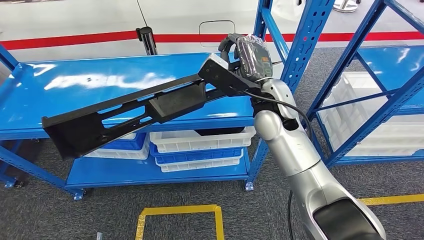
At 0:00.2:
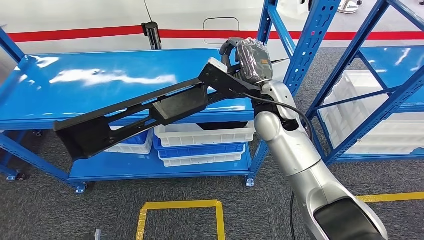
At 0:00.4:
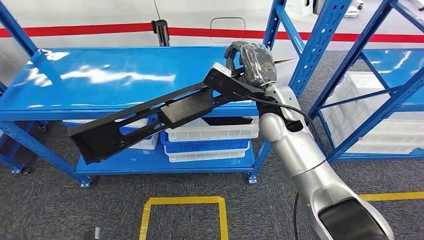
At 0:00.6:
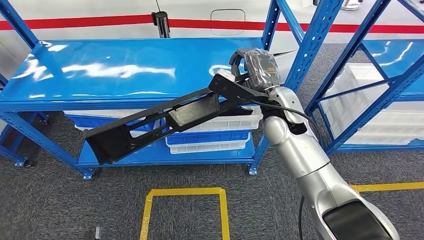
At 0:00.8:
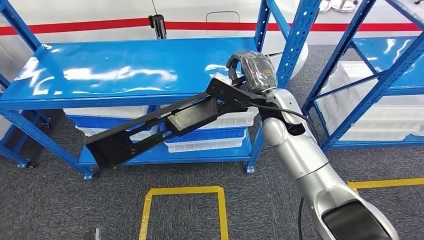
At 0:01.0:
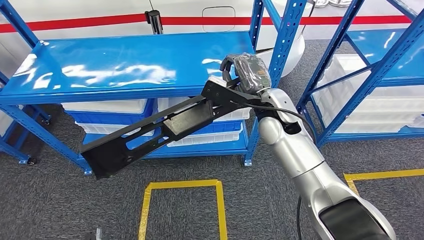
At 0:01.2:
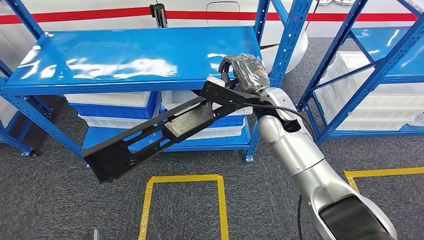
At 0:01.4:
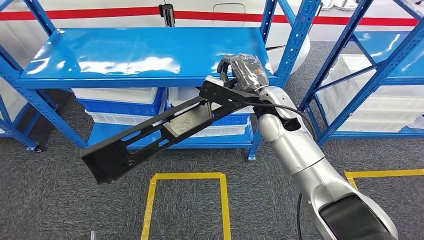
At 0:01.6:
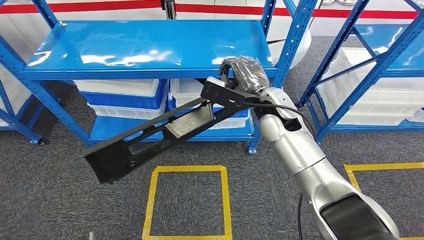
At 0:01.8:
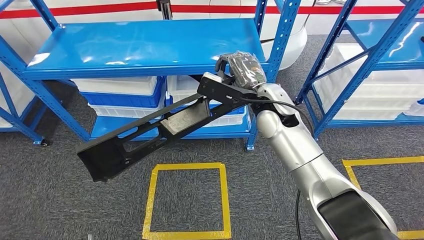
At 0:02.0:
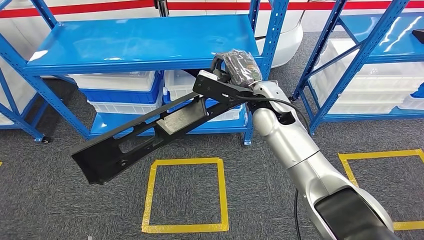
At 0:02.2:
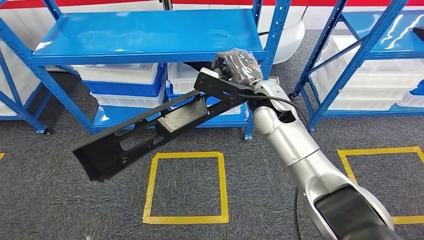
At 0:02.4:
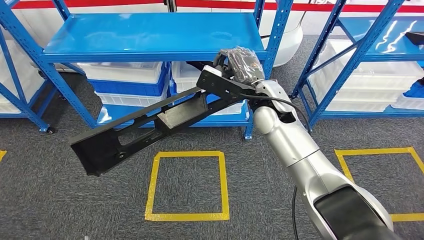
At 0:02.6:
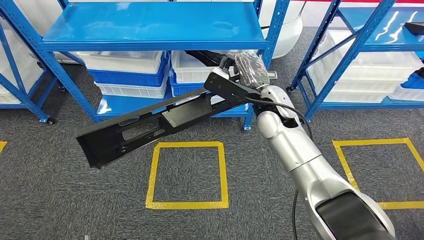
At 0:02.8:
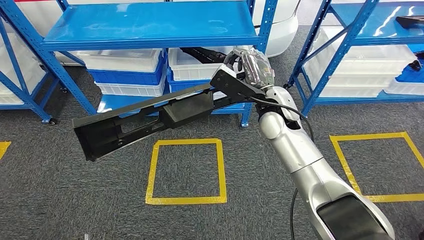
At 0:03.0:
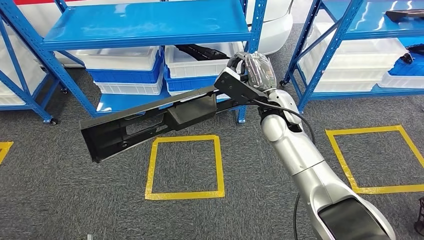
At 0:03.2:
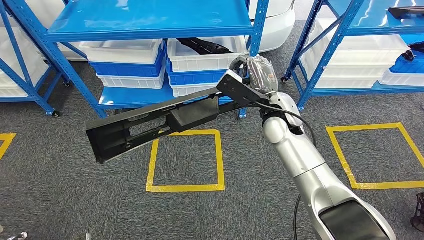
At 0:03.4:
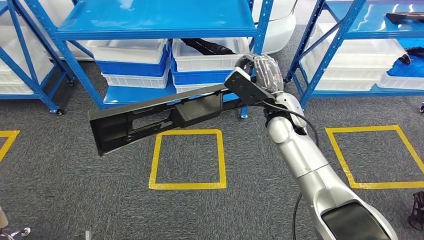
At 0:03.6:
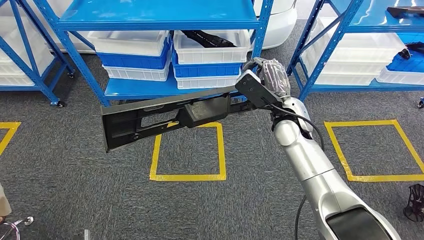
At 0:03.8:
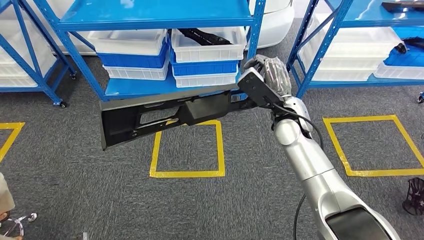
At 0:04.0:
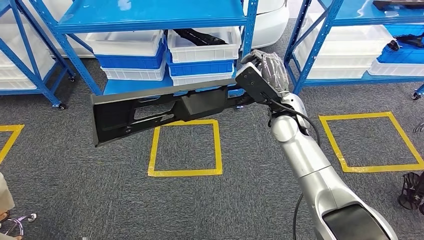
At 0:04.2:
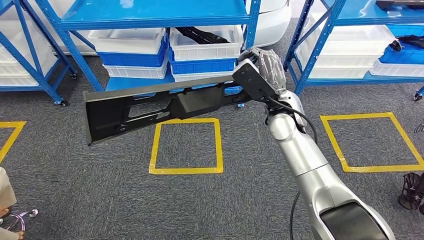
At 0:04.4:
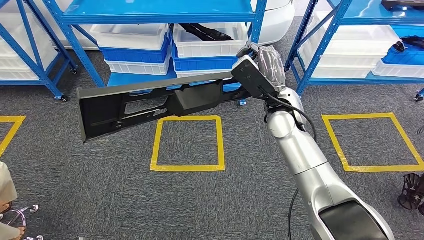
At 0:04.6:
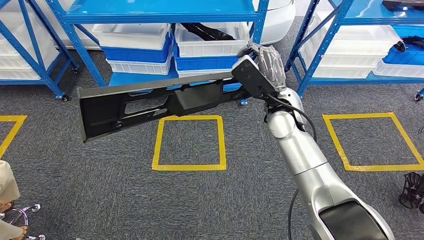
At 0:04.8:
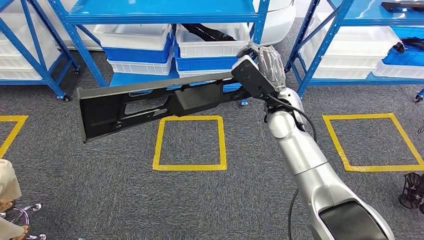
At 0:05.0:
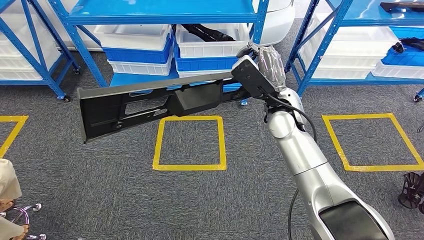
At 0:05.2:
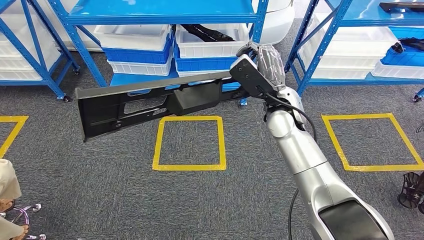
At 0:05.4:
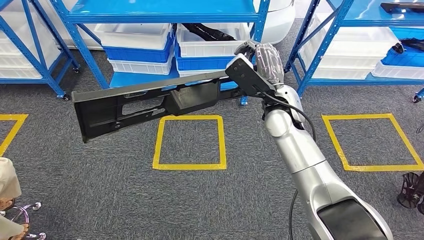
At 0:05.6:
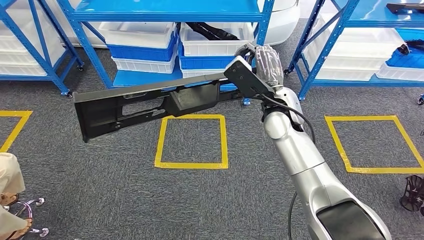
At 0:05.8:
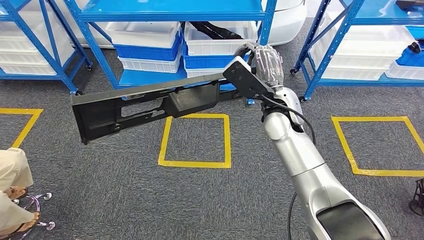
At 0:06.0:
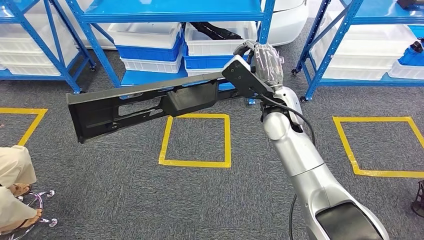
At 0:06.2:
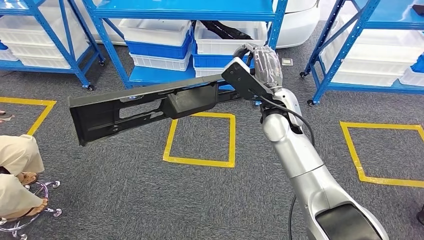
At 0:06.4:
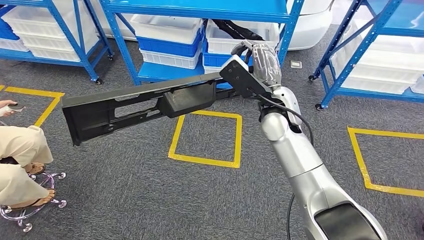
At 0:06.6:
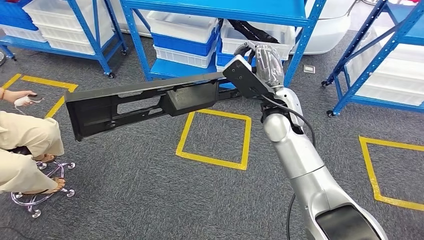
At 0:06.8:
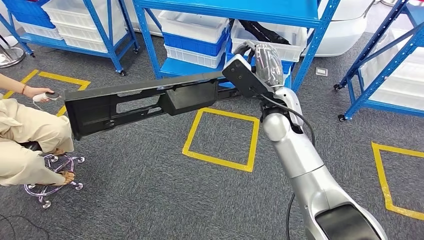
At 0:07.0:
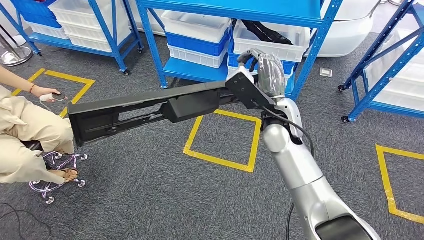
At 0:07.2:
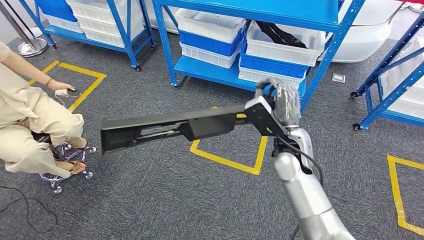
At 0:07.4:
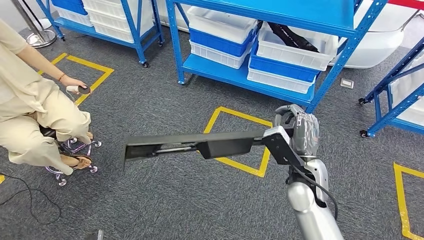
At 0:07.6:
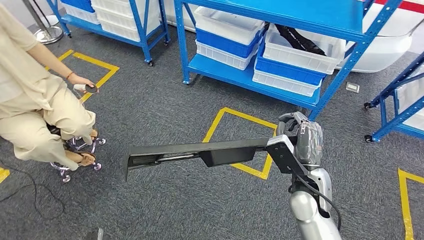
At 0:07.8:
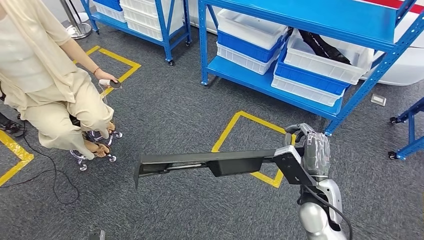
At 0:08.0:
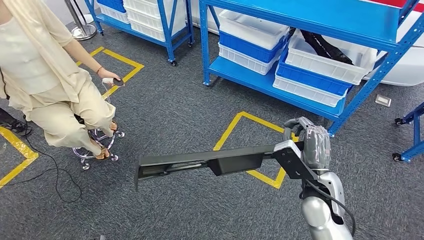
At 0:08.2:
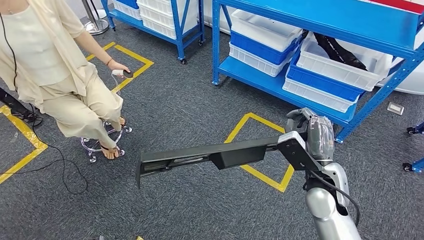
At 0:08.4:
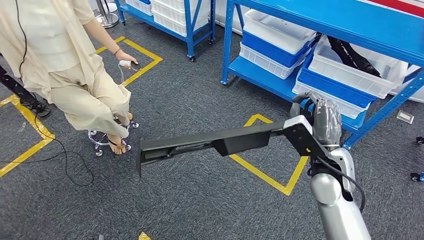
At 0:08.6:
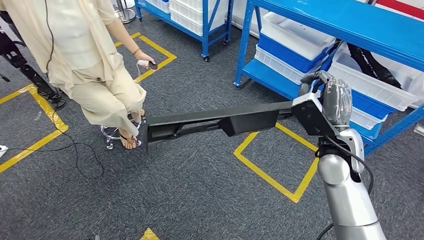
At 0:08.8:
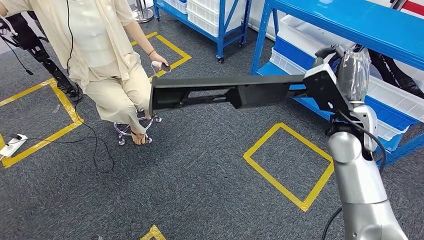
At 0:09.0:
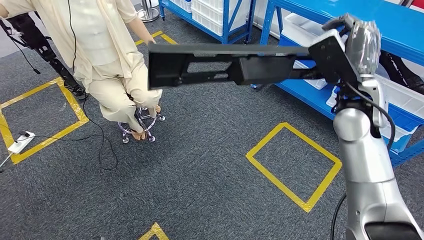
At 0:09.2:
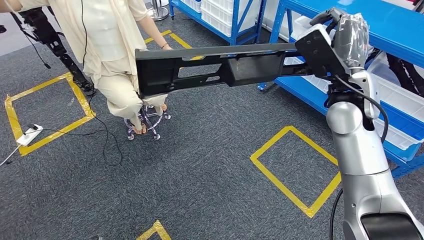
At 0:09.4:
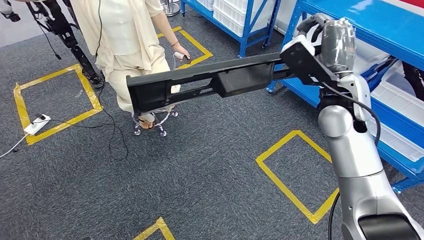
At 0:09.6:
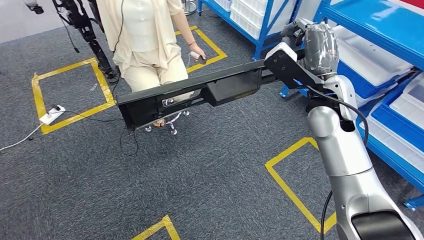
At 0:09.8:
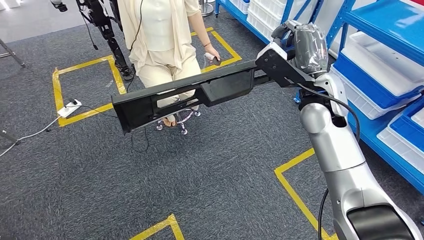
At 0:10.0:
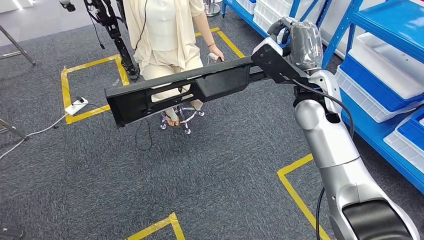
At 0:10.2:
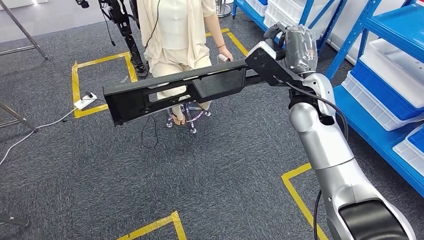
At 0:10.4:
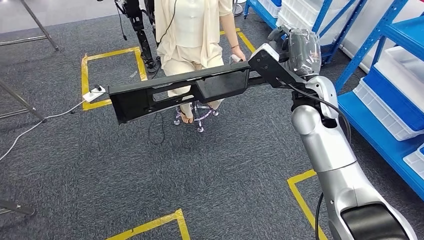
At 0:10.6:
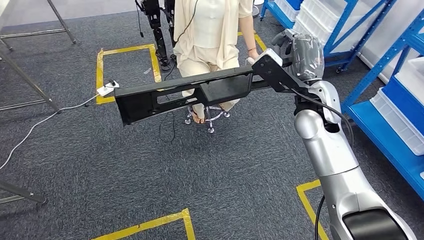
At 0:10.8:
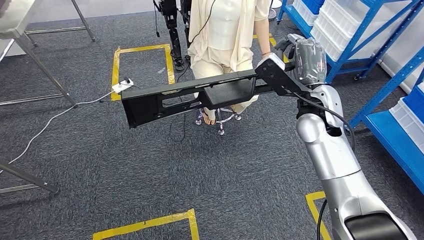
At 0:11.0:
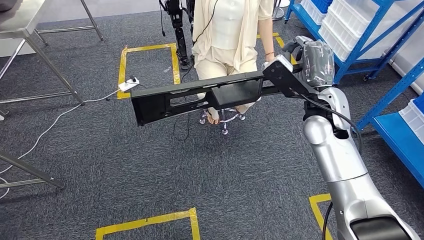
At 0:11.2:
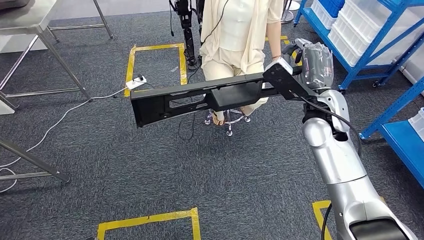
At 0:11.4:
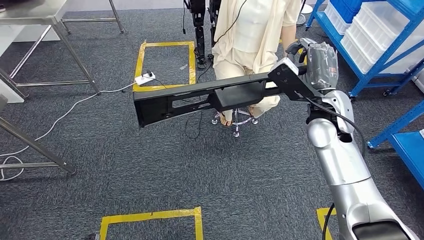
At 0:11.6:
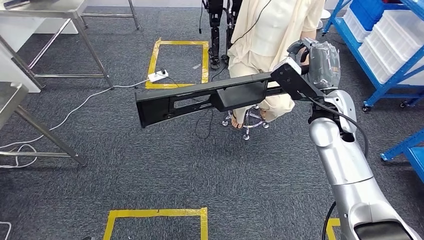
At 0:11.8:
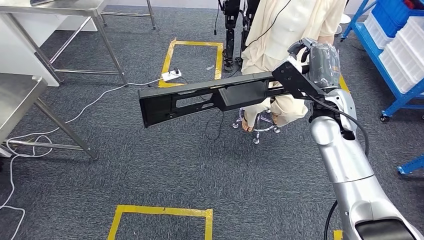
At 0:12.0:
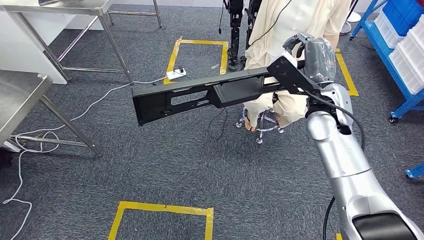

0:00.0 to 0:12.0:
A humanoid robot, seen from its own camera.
Step, 0:00.0 to 0:02.2: Pick up the large material from the shelf.

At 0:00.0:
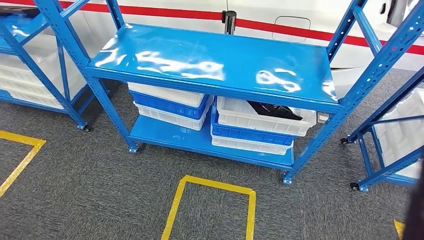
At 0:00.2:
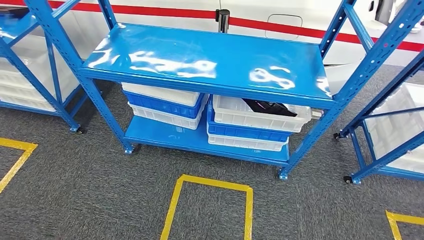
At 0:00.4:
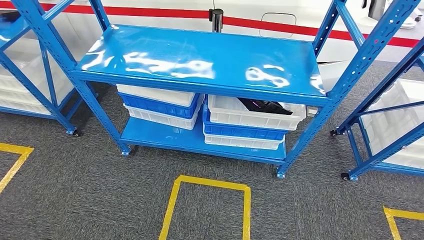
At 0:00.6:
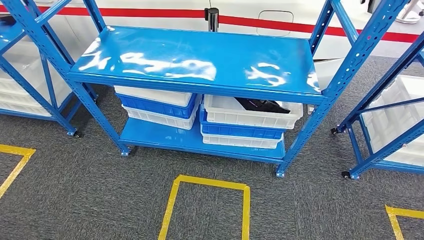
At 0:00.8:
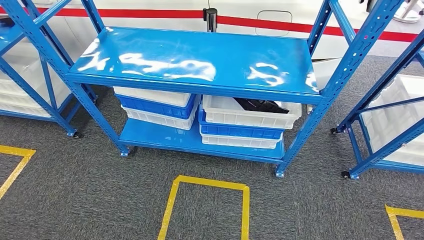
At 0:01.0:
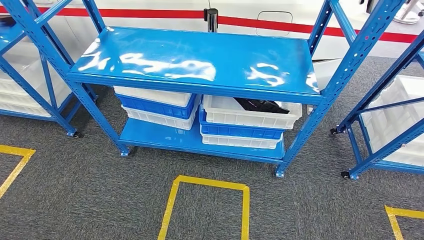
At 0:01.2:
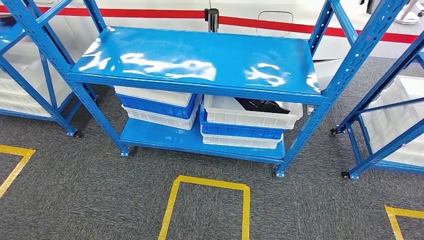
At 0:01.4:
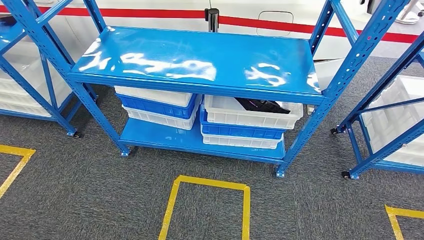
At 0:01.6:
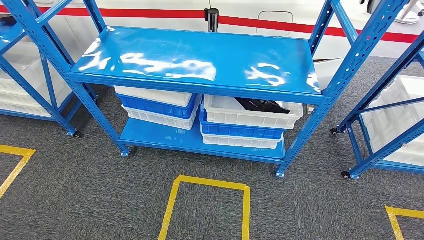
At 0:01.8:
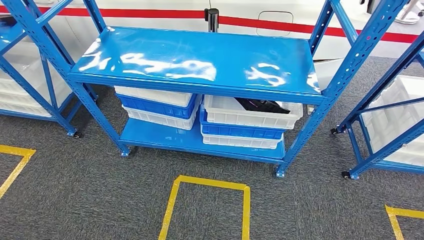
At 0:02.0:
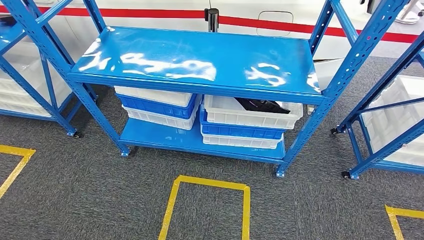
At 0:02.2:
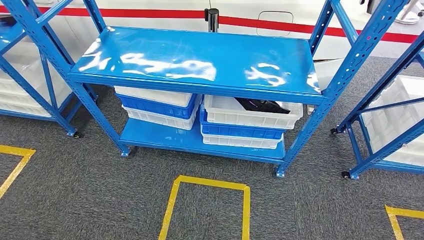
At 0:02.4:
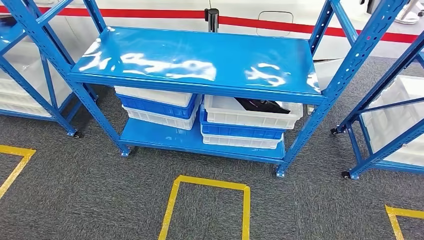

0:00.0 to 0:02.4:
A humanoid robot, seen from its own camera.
Step, 0:00.0 to 0:02.2: Move to the initial position of the shelf.
